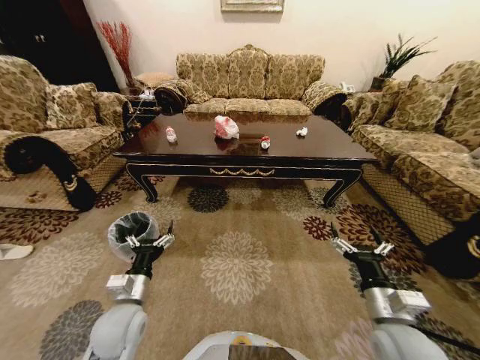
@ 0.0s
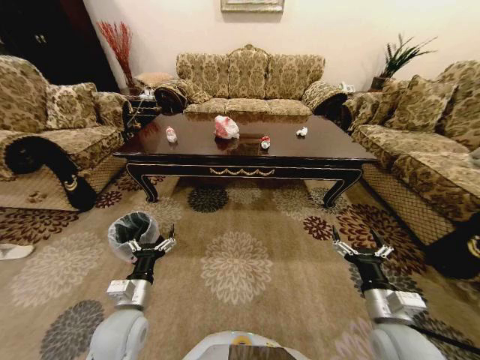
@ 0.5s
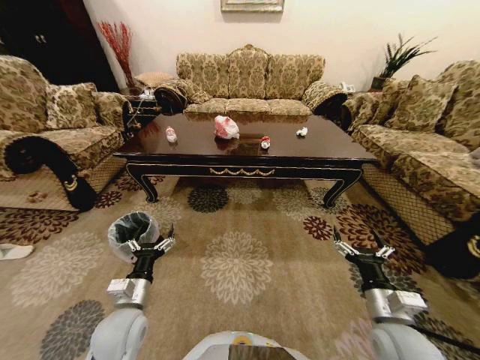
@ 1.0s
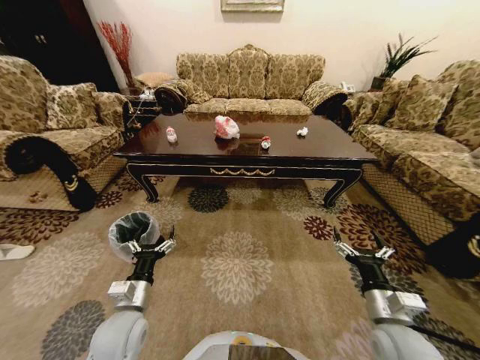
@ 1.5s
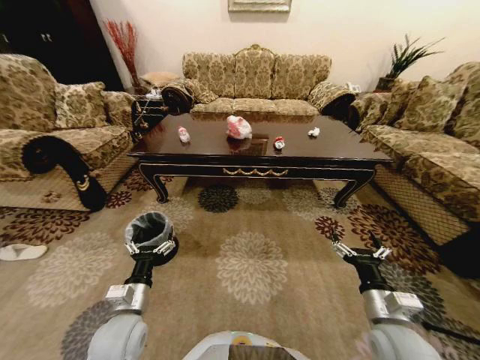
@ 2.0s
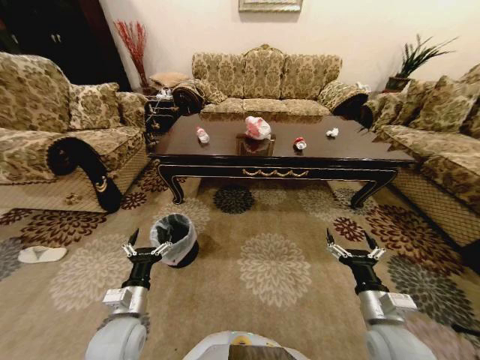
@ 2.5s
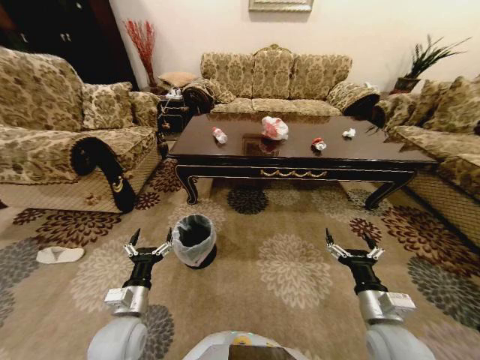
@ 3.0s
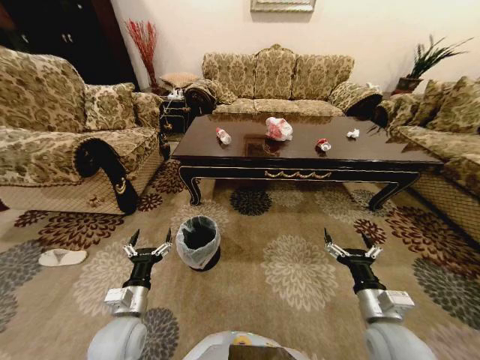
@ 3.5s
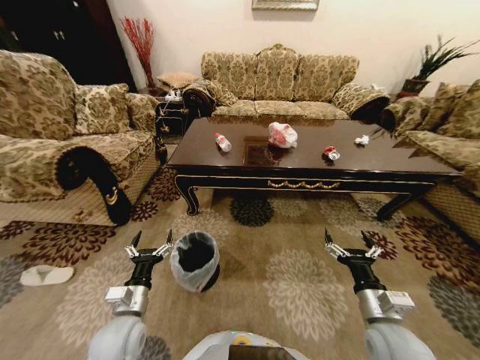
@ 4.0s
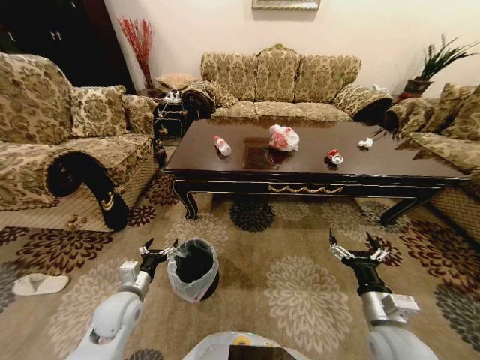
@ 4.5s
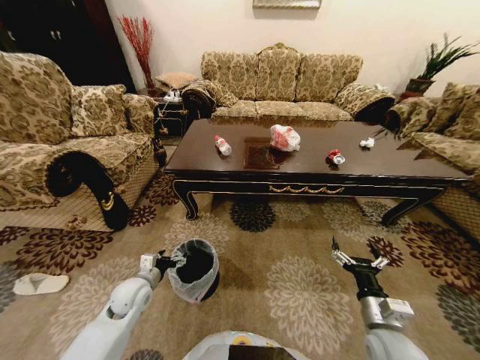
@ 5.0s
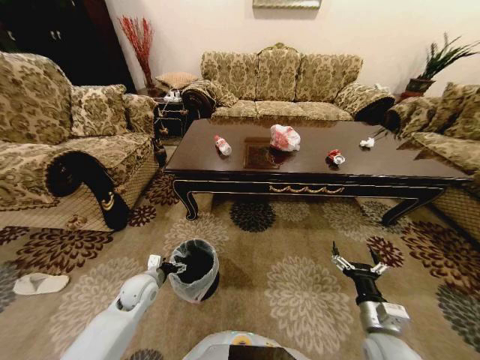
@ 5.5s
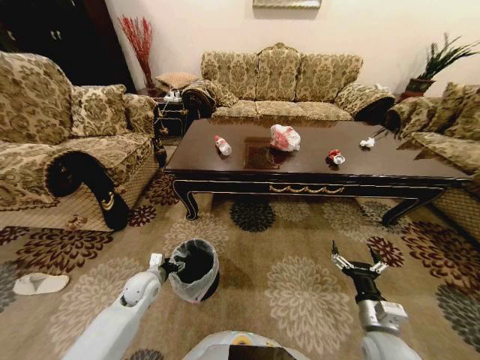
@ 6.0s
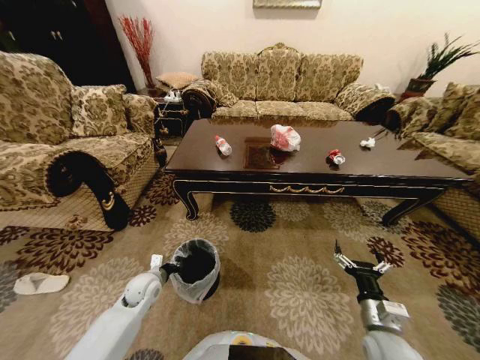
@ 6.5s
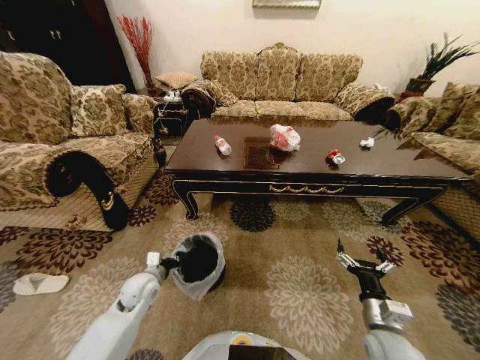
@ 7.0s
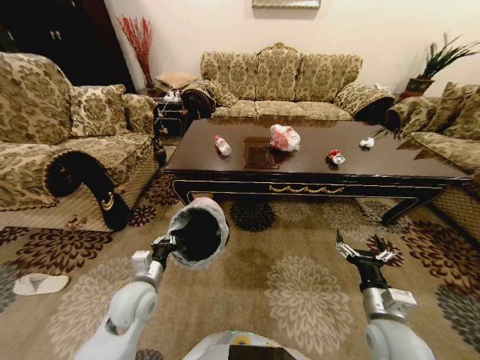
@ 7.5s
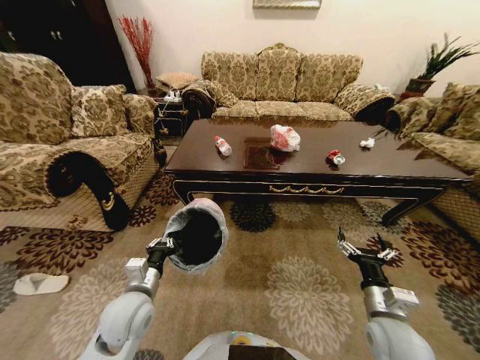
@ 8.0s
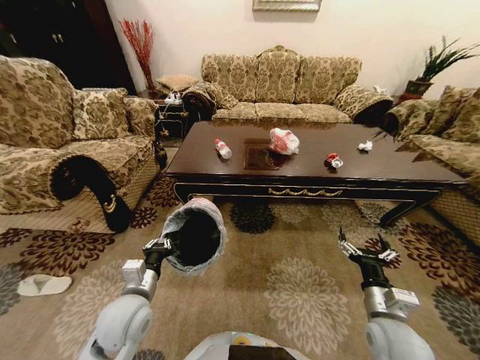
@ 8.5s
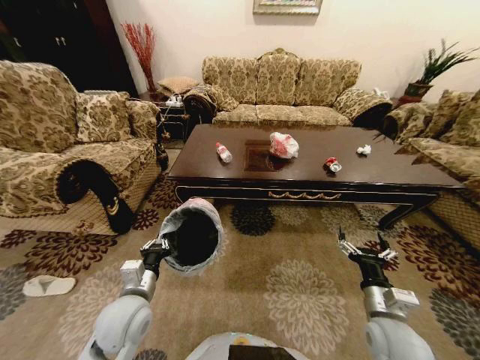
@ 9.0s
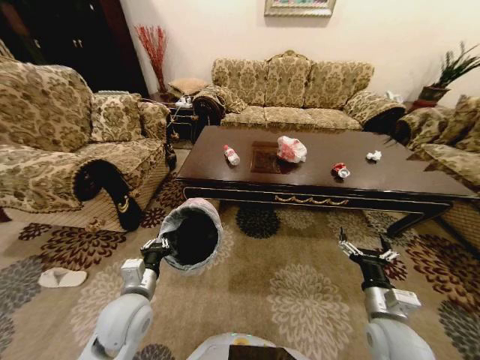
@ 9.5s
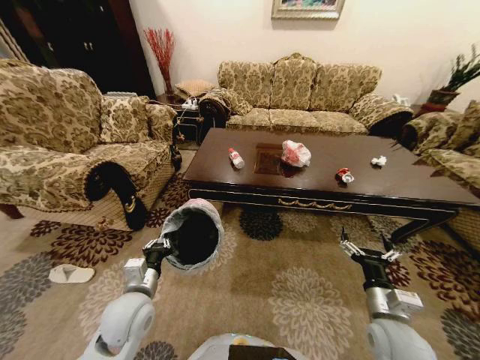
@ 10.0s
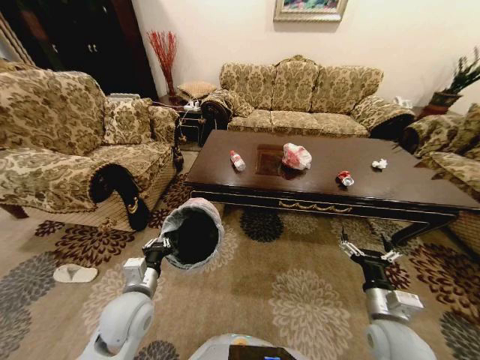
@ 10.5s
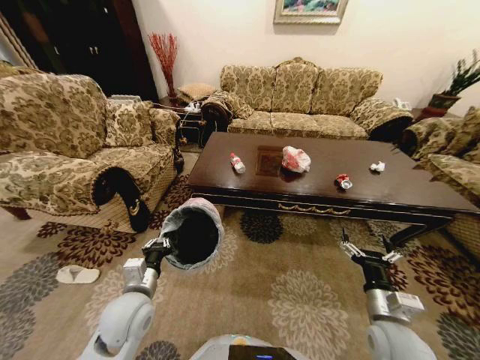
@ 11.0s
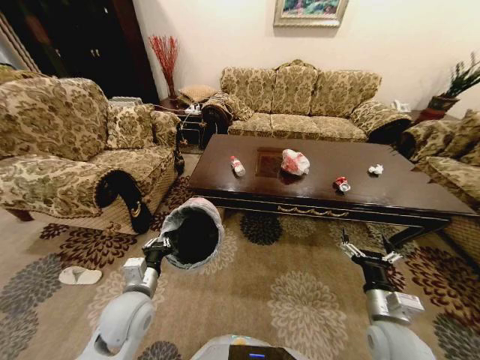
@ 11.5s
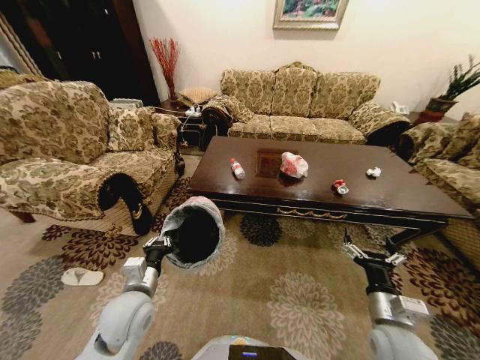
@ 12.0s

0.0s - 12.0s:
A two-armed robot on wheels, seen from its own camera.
Task of the whole recording: Move to the front of the table and place the trash on the table into the trash bin.
4.0s - 6.0s: The right gripper heads downward, covering about 5 cm; the left gripper travels forward and downward by some 15 cm.
6.0s - 8.0s: The left gripper is displaced upward, backward and to the right by roughly 15 cm, and closes.

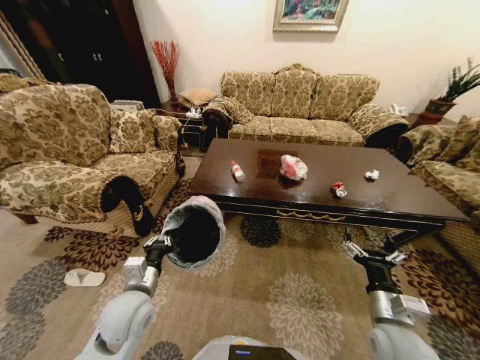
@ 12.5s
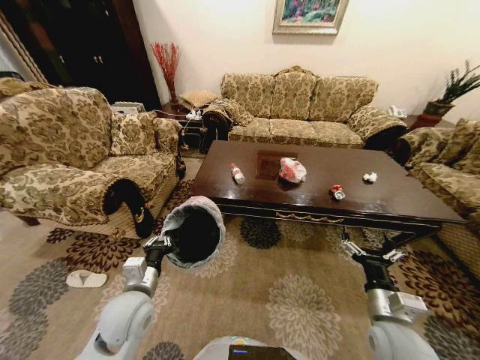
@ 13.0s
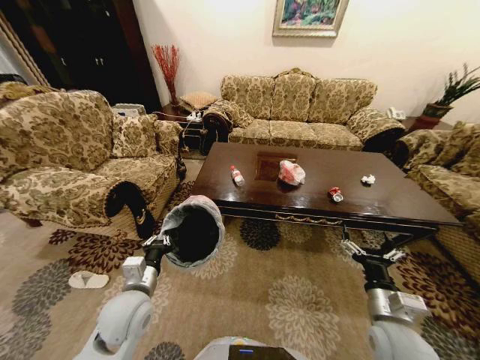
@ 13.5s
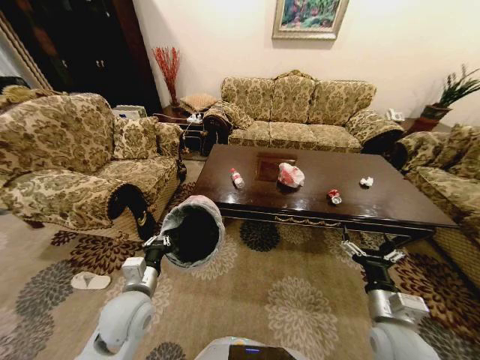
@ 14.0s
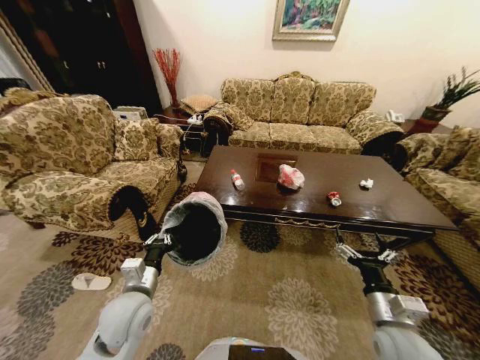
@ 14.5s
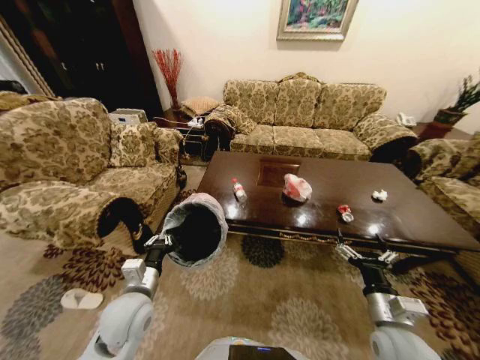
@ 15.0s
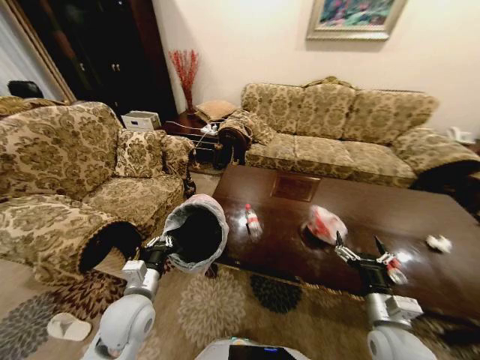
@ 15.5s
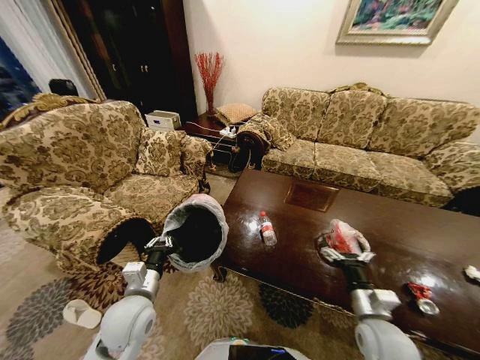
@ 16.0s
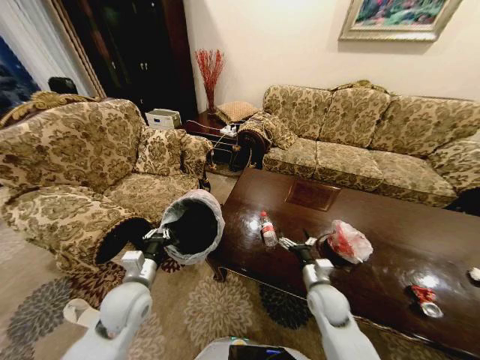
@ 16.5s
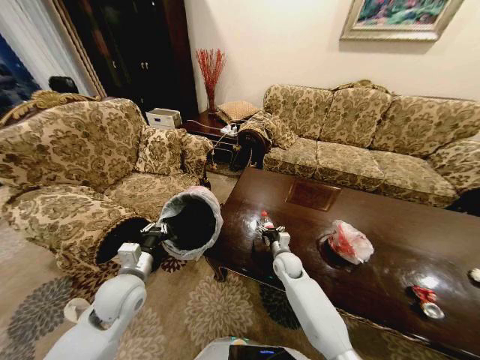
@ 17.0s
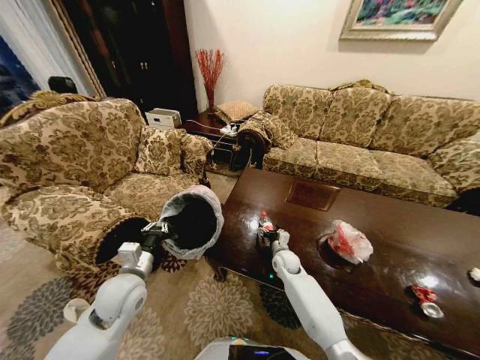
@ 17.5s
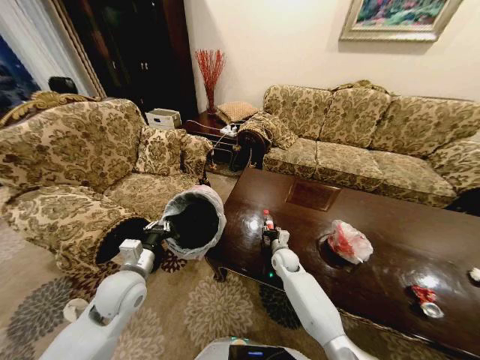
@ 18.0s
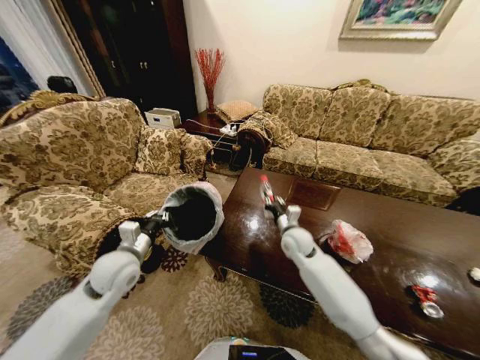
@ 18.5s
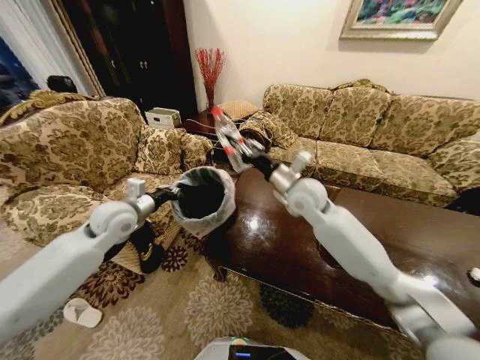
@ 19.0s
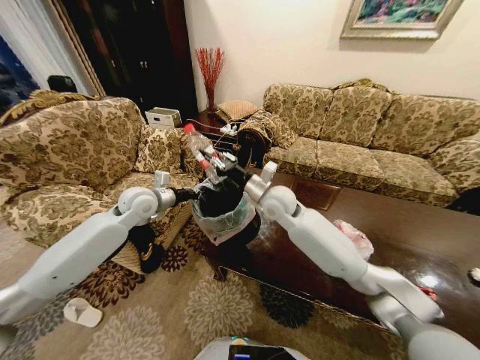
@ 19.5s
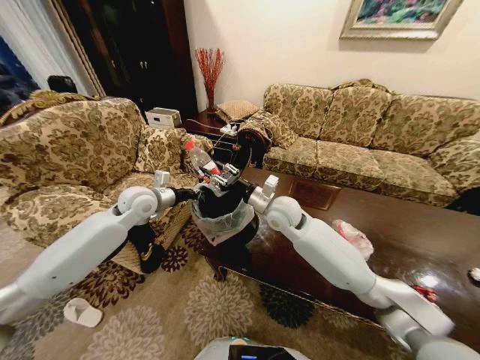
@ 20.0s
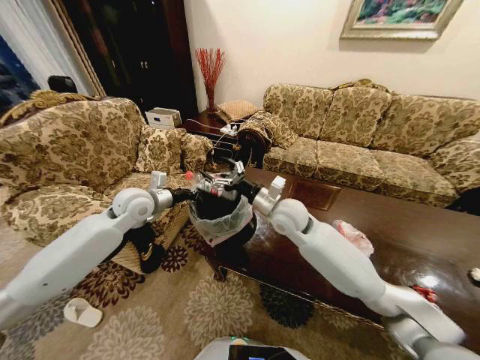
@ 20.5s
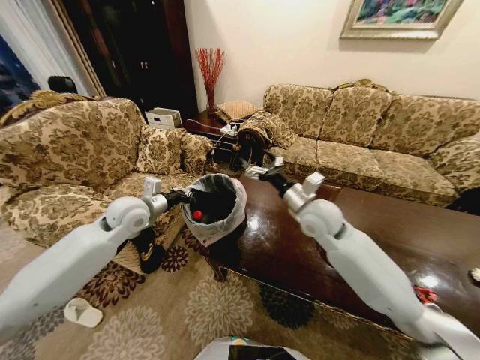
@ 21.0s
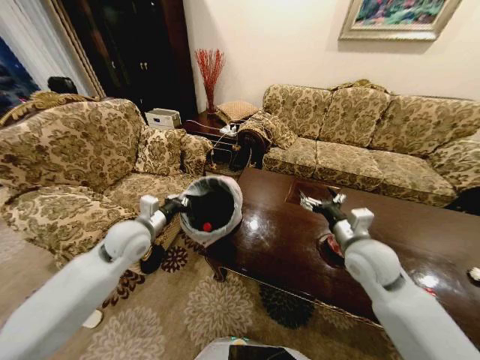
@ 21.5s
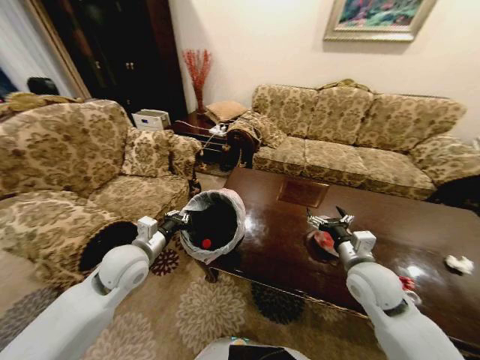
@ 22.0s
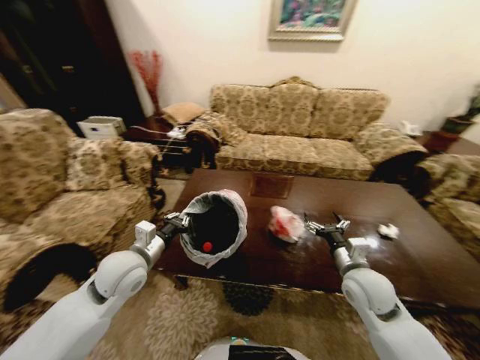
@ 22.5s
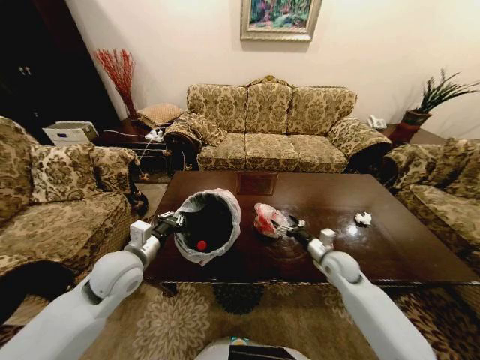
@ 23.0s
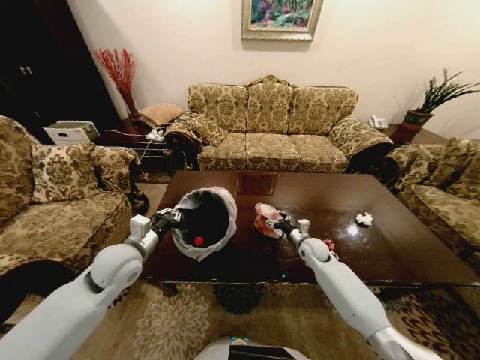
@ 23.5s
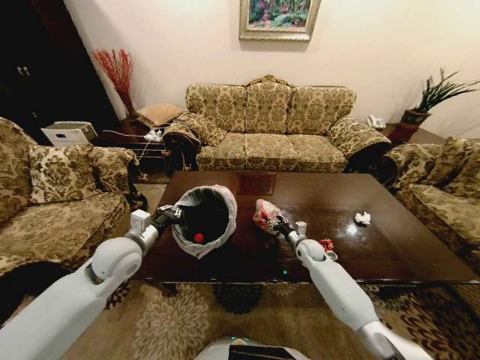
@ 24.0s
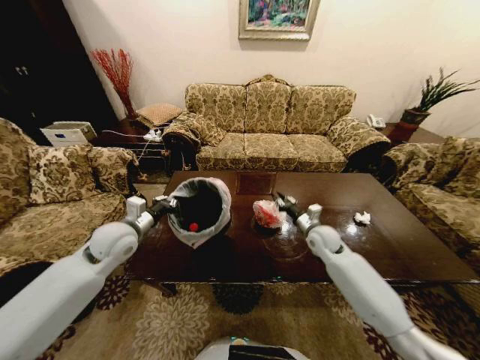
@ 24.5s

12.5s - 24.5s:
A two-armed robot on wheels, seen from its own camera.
Task of the whole recording: Move to the front of the table and place the trash on the table into the trash bin.
14.5s - 16.5s: The right gripper moves forward, downward and to the left, some 15 cm.
16.5s - 18.5s: The right gripper is displaced forward, upward and to the left by roughly 20 cm, and closes. Meanwhile the left gripper shifts some 10 cm forward and upward.
18.5s - 20.5s: The left gripper shifts approximately 15 cm forward and upward. The right gripper heads upward and to the left, covering some 15 cm, and opens.
20.5s - 22.5s: The right gripper shifts some 25 cm to the right, backward and downward. Meanwhile the left gripper heads backward and downward, covering some 15 cm.
22.5s - 24.5s: The left gripper moves forward and to the left, some 10 cm. The right gripper moves forward, roughly 15 cm, and closes.

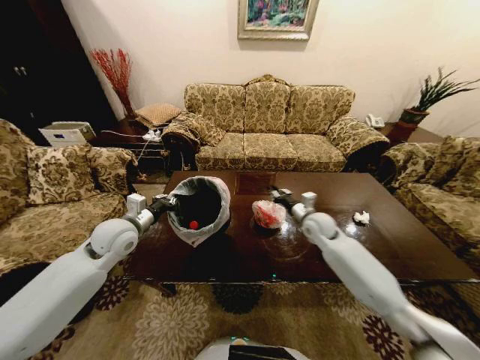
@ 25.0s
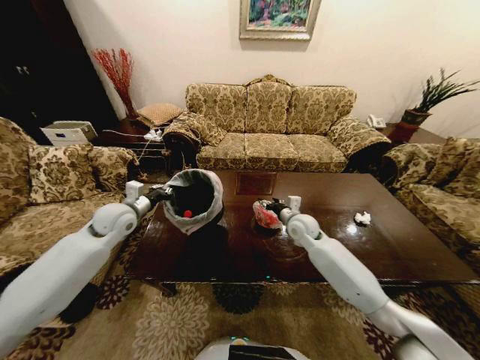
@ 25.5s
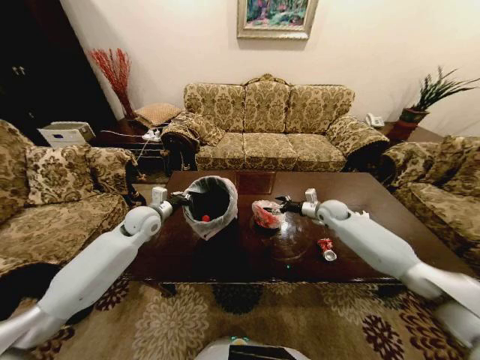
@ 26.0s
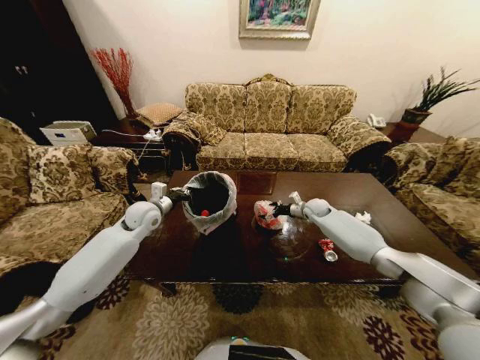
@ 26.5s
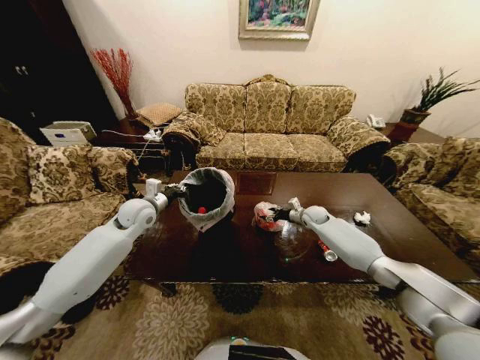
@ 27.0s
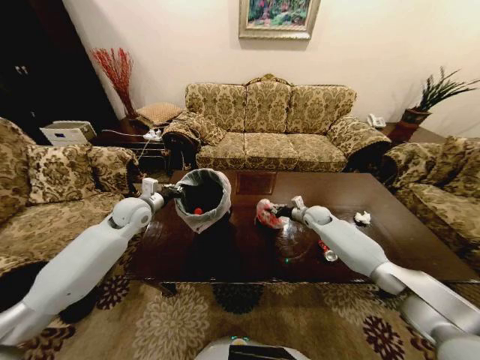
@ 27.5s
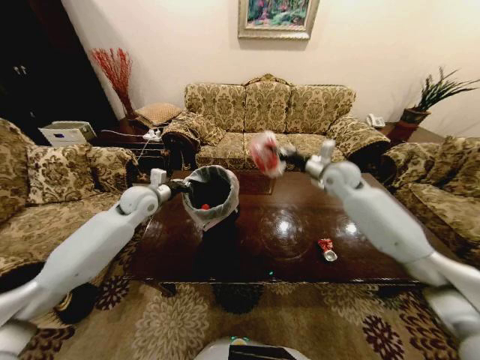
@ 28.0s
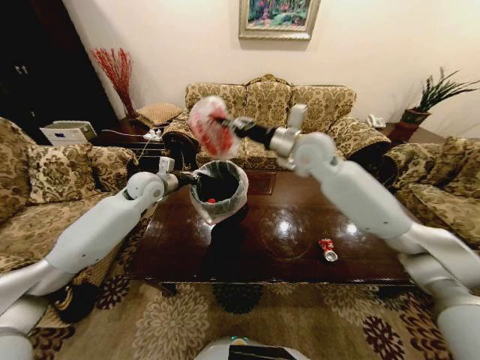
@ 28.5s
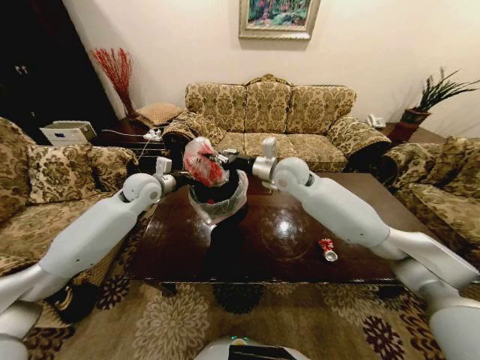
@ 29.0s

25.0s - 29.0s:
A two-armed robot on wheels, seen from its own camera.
Task of the whole recording: Move to the front of the table and place the trash on the table into the trash bin.
25.0s - 27.0s: The left gripper goes about 10 cm forward; the right gripper goes some 15 cm forward, downward and to the right, and opens its fingers.
27.0s - 29.0s: The left gripper goes some 5 cm upward. Meanwhile the right gripper goes about 30 cm upward and to the left, and closes up.
